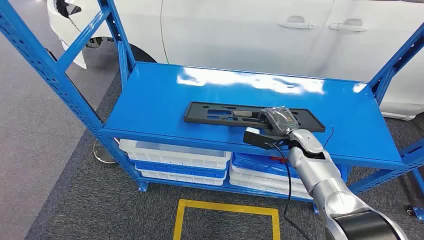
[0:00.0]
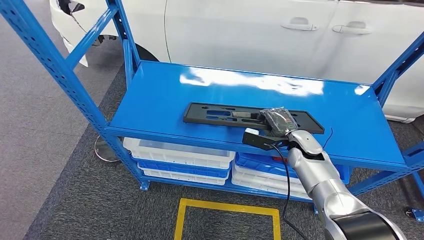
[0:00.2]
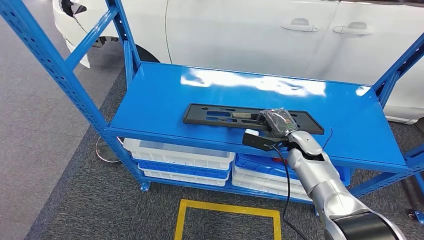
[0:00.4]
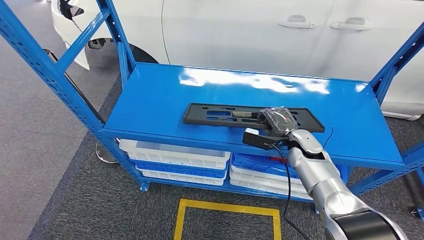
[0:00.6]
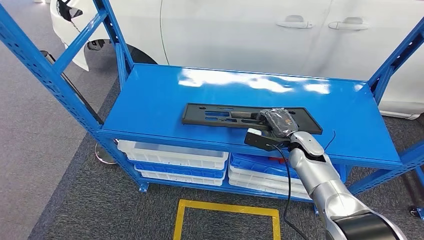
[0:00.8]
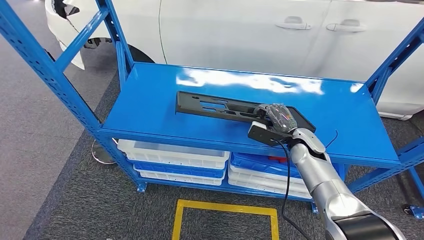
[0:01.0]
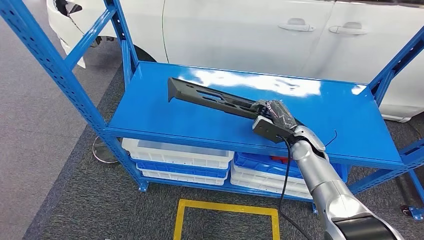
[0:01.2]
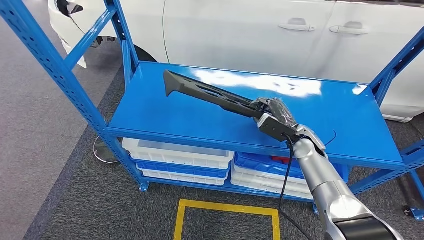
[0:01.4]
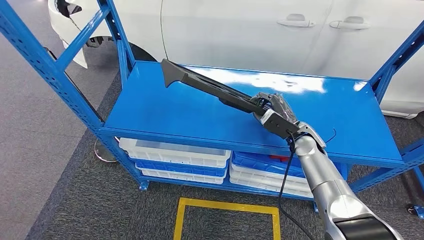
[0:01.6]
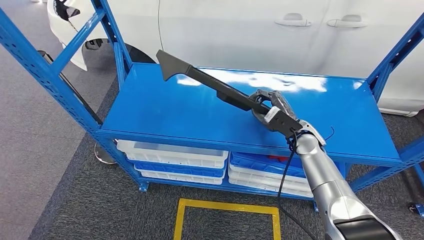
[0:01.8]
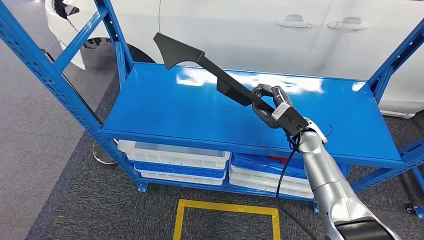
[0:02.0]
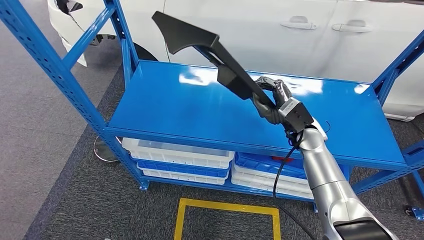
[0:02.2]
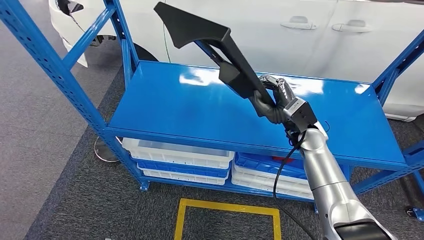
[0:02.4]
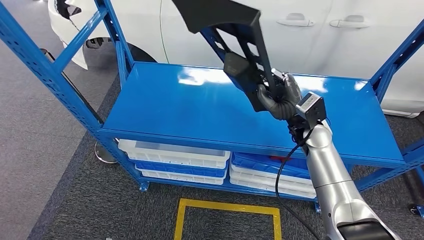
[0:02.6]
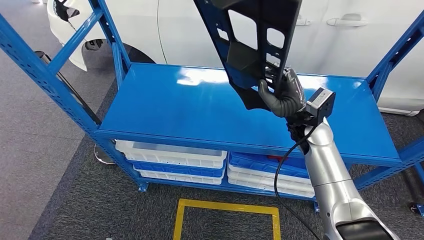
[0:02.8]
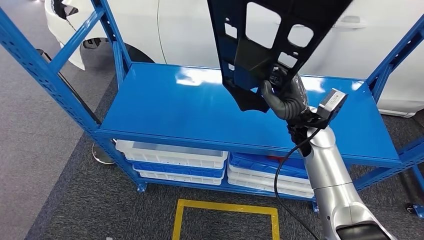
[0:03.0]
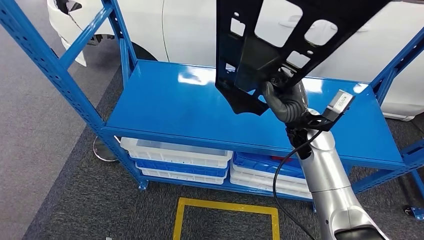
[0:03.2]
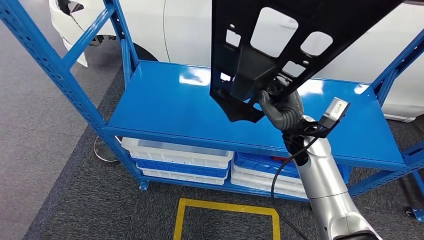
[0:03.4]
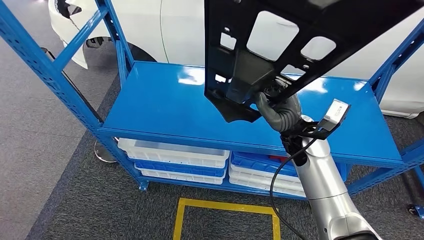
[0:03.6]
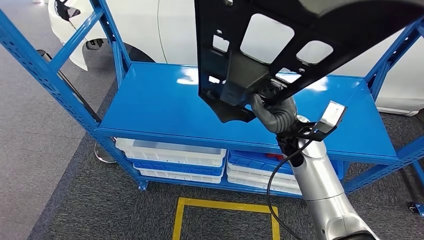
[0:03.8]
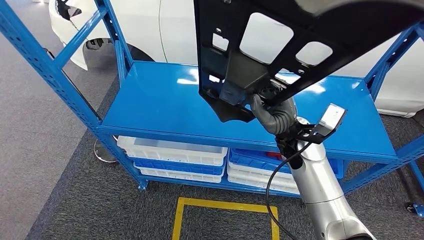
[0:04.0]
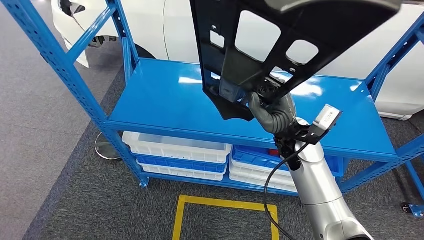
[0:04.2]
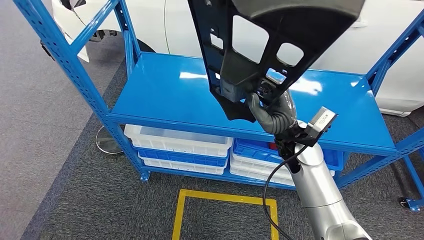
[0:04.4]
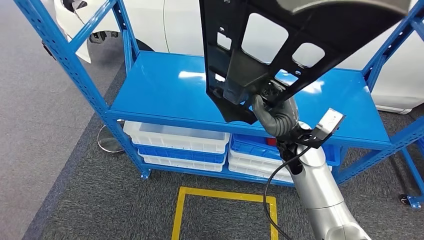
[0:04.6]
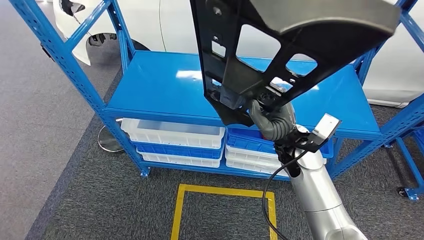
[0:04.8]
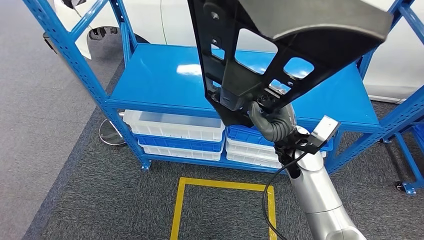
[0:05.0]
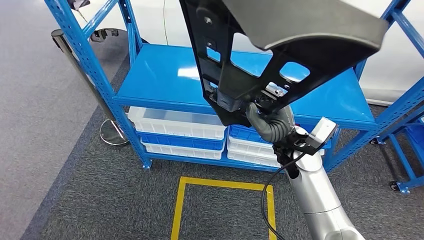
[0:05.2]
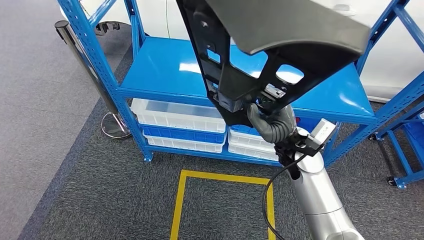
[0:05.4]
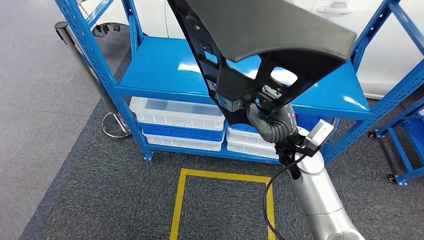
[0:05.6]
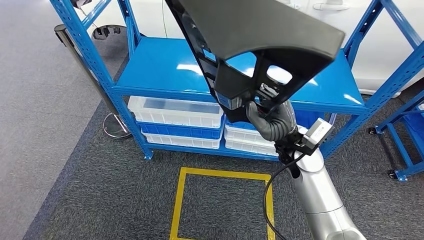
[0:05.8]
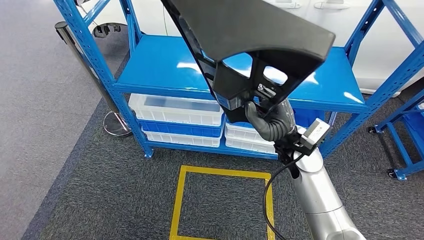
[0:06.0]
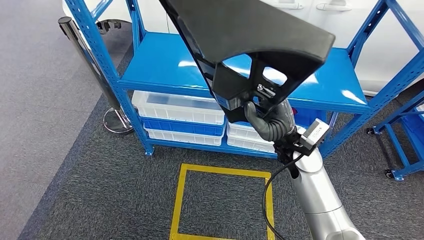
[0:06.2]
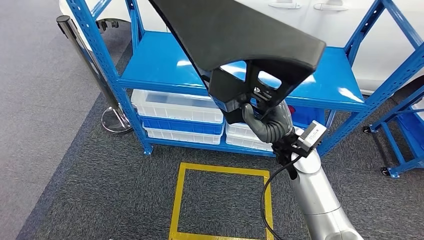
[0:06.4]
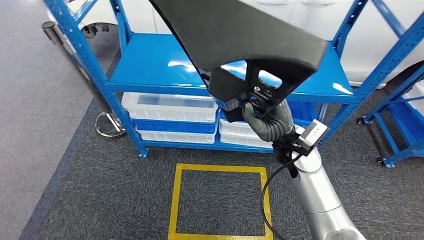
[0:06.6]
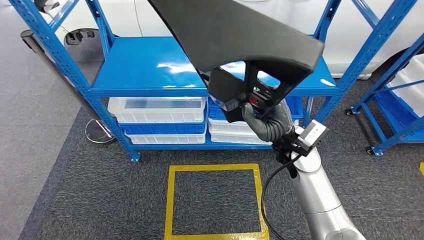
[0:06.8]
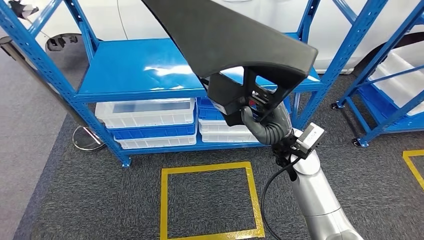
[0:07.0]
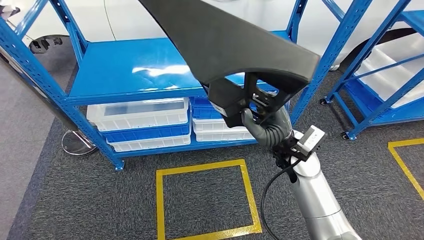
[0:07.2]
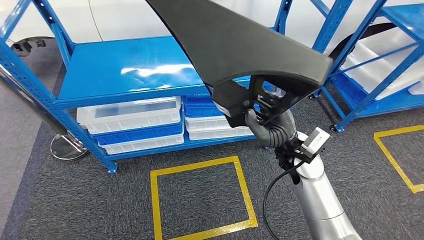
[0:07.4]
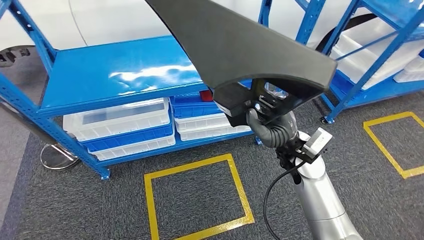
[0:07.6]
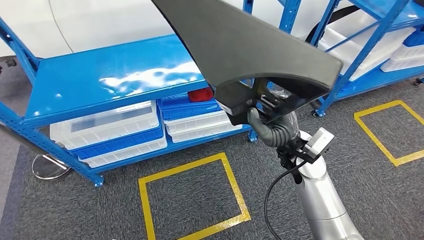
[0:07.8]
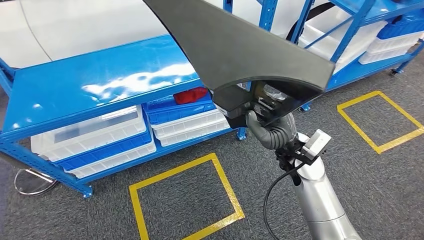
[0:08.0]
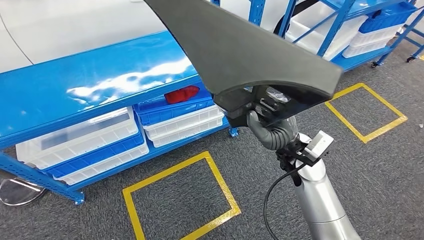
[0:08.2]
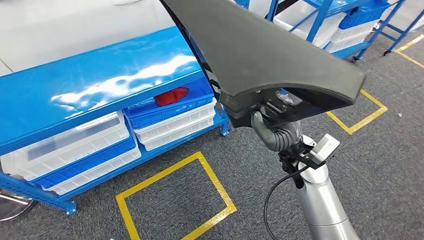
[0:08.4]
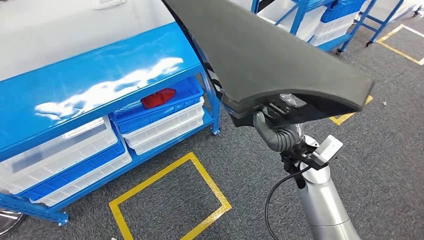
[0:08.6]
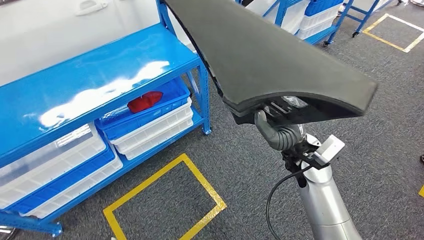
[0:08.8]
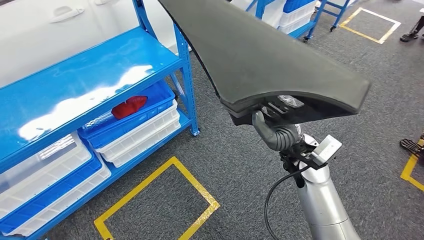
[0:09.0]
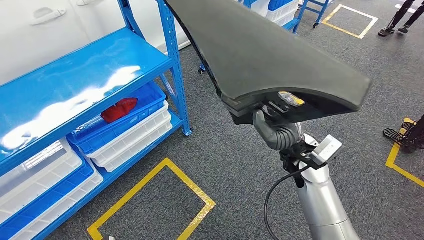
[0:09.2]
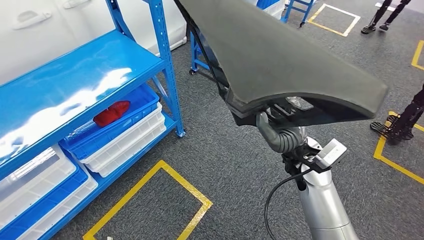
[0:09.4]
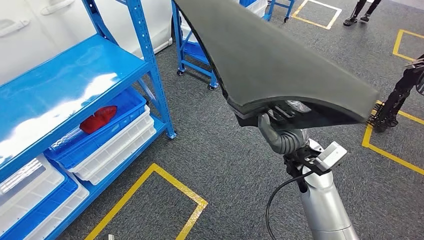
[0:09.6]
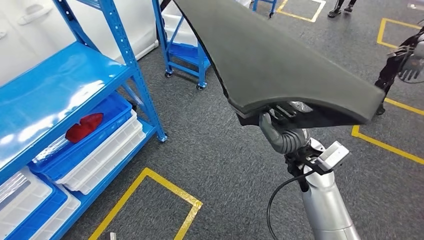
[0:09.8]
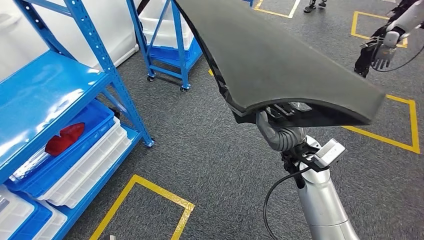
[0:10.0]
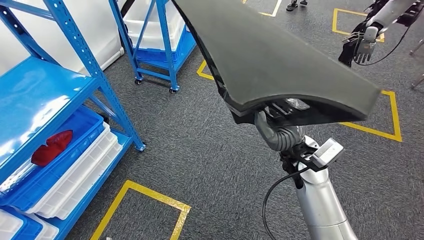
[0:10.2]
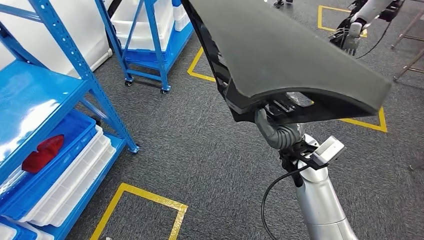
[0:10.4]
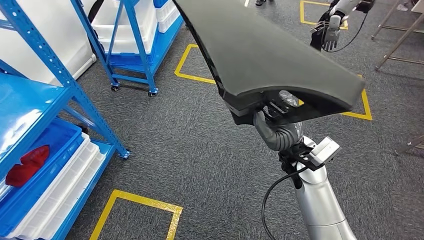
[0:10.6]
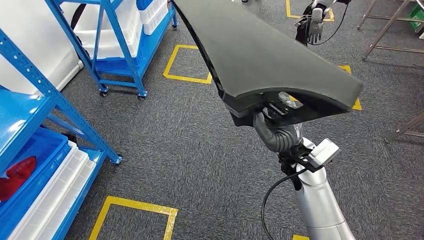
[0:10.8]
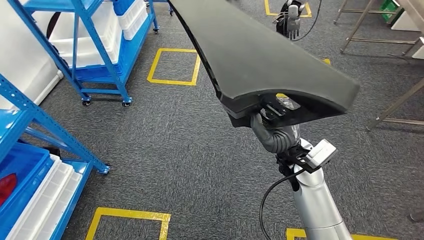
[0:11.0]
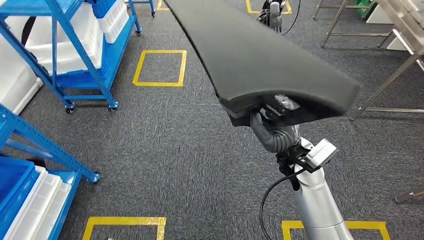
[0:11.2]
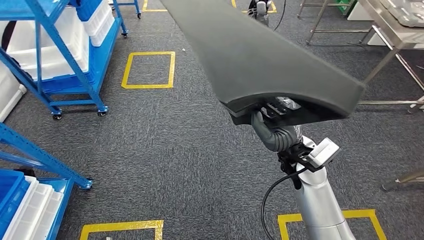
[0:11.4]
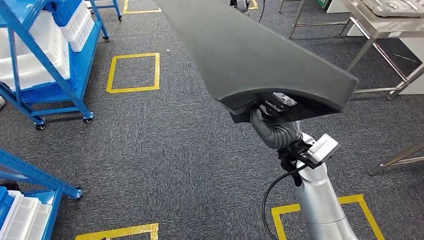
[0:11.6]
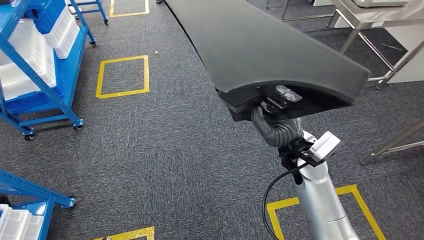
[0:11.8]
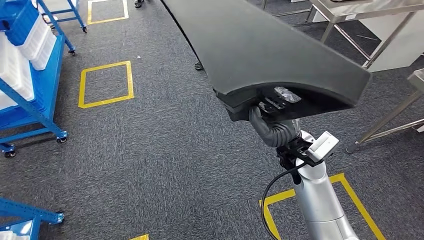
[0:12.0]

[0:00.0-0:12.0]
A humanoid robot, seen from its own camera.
Step, 0:00.0 to 0:04.6: Pick up the small component from the shelf.

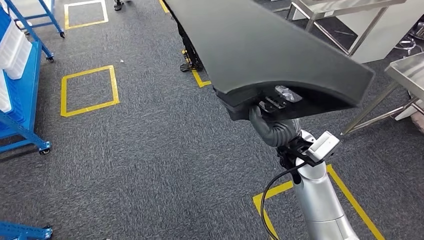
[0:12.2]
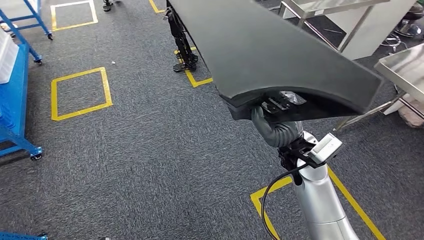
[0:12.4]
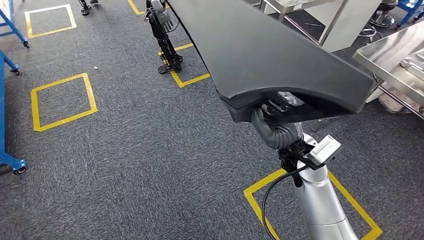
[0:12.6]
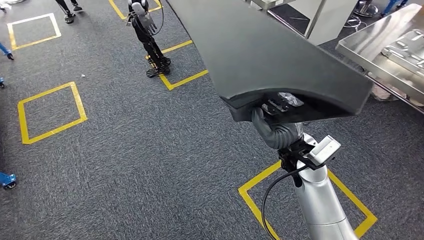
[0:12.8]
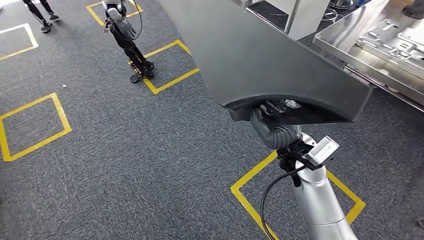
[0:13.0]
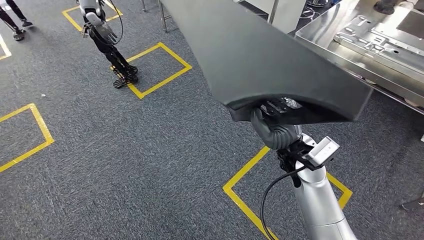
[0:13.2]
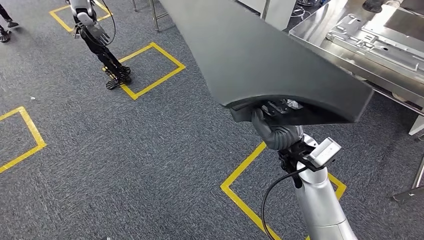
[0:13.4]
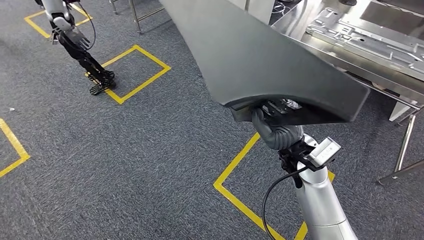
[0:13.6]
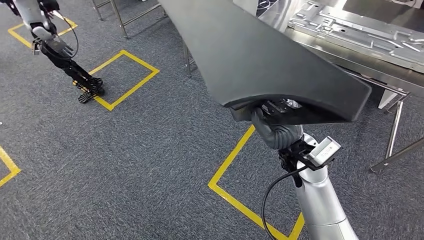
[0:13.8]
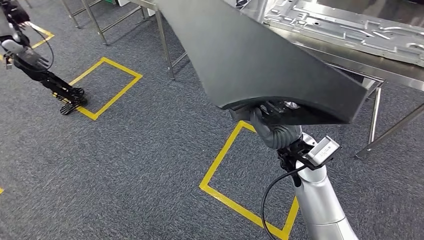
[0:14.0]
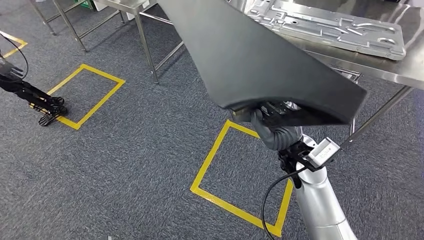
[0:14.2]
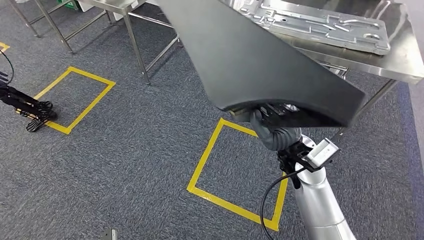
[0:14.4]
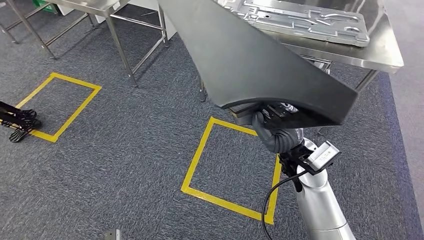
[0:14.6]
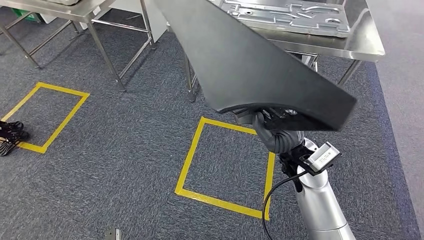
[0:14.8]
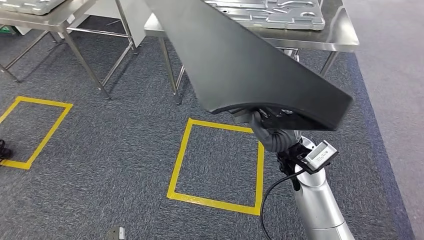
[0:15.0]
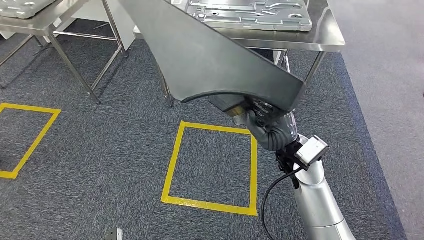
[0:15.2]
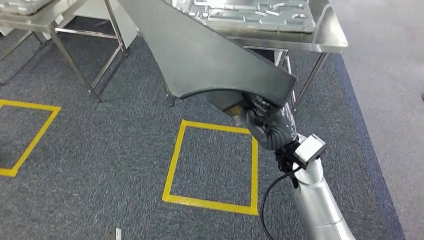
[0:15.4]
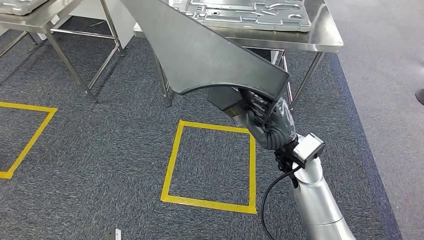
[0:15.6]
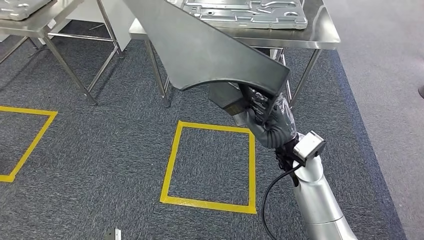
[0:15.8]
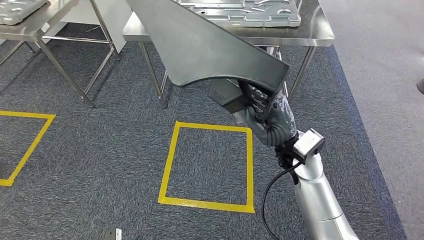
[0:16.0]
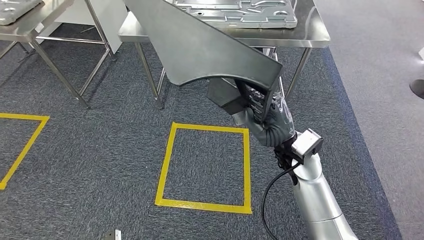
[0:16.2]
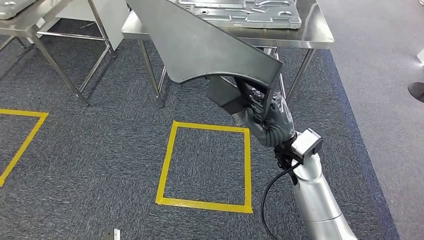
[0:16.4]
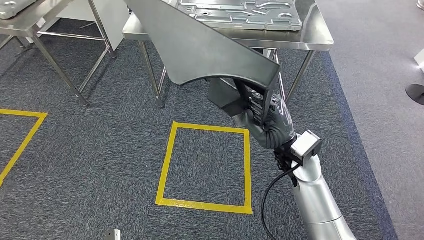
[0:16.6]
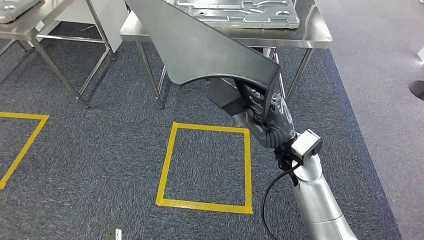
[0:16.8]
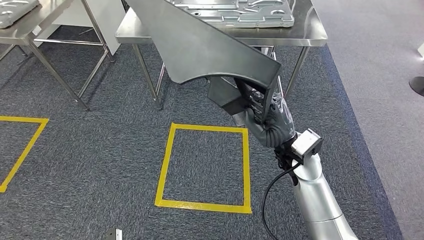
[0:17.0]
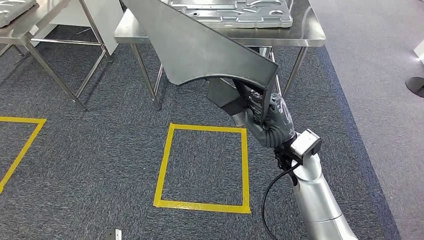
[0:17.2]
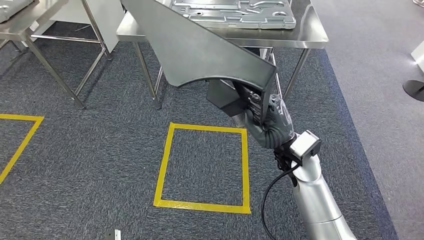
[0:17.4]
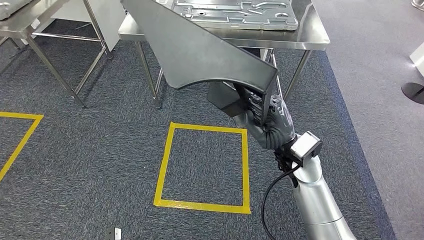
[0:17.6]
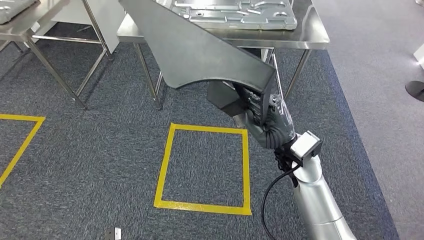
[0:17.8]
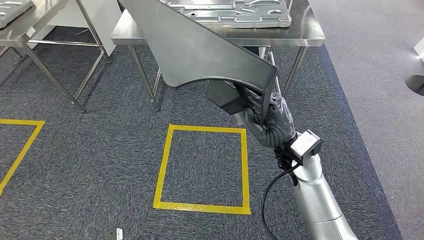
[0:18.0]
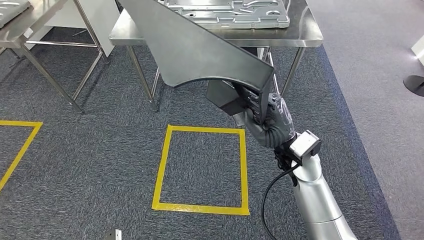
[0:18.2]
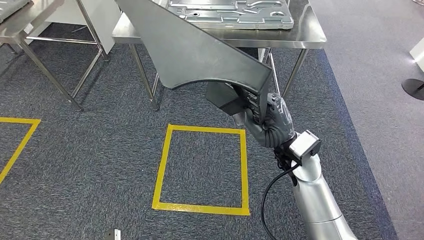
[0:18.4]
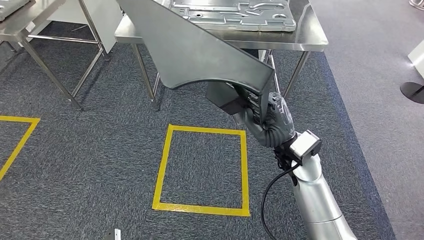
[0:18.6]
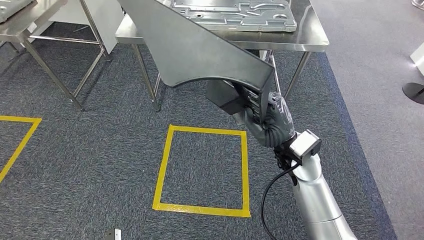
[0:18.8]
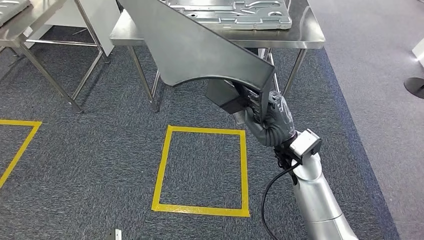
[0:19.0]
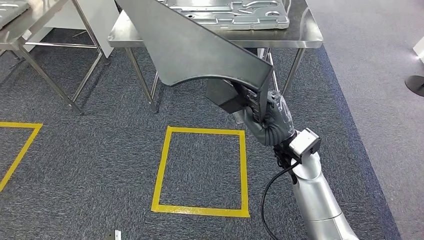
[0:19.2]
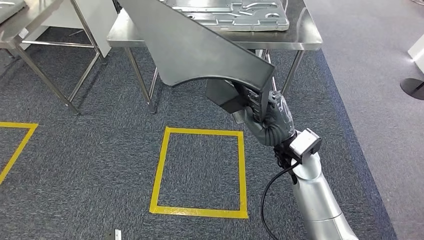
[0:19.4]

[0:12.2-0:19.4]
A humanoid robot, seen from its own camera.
0:16.6 to 0:19.4: Neither hand changes place.
